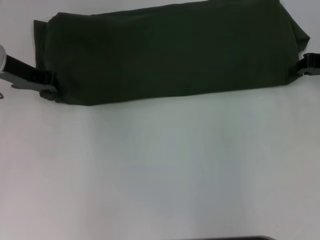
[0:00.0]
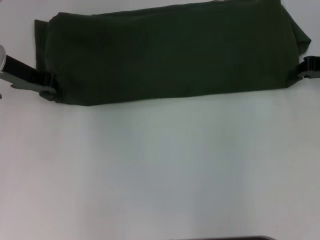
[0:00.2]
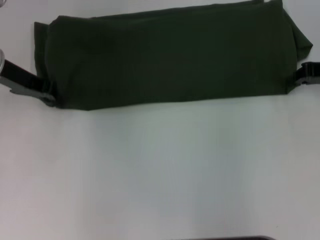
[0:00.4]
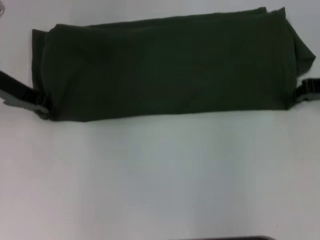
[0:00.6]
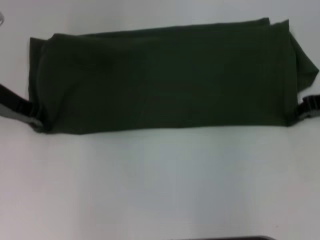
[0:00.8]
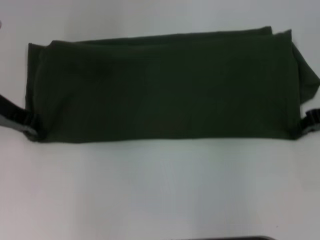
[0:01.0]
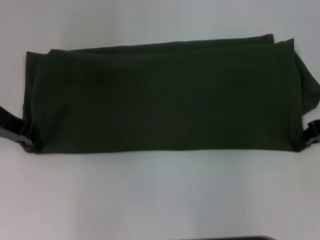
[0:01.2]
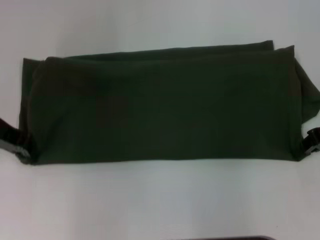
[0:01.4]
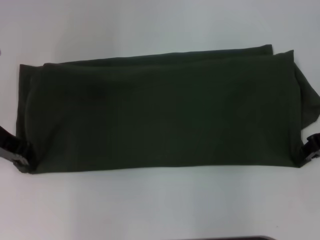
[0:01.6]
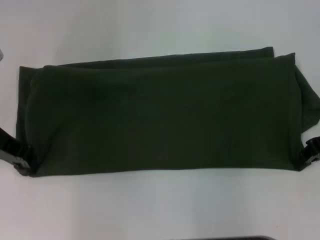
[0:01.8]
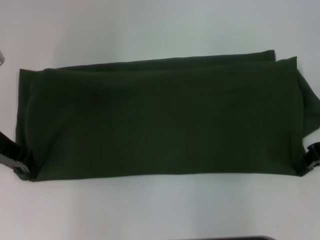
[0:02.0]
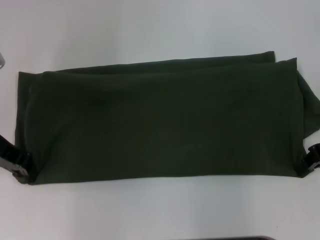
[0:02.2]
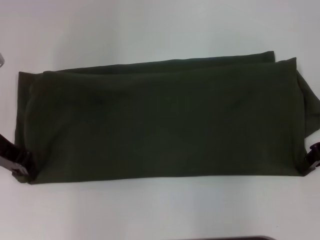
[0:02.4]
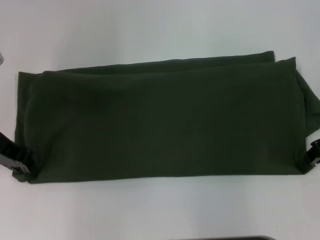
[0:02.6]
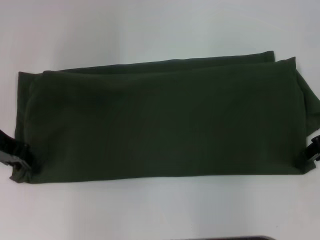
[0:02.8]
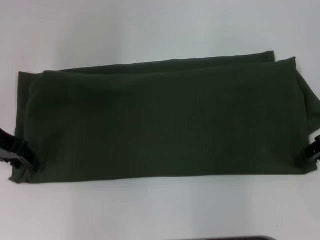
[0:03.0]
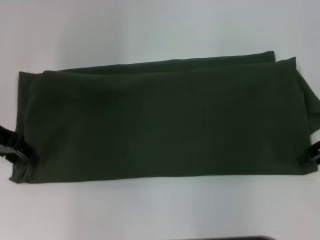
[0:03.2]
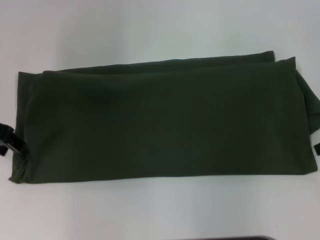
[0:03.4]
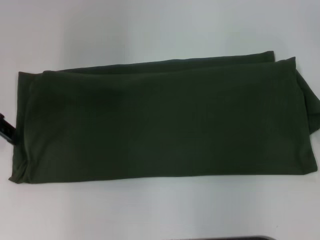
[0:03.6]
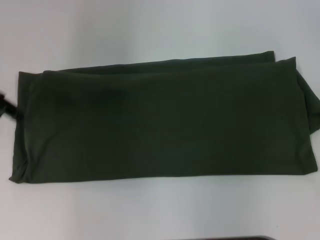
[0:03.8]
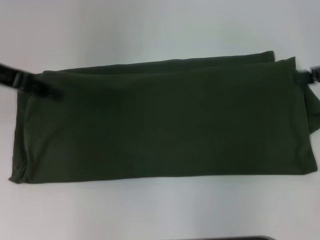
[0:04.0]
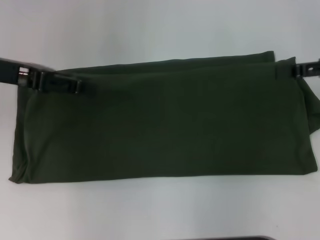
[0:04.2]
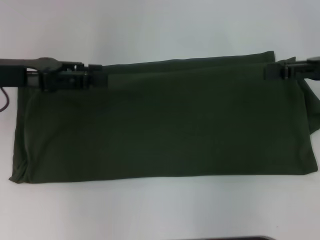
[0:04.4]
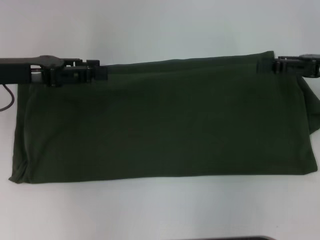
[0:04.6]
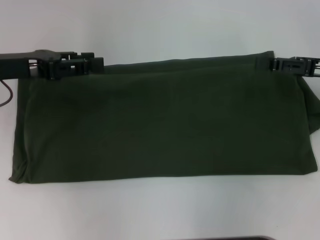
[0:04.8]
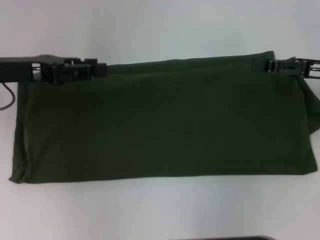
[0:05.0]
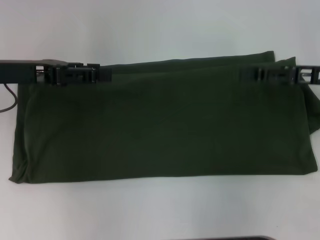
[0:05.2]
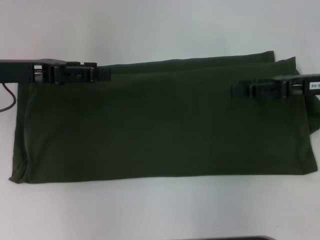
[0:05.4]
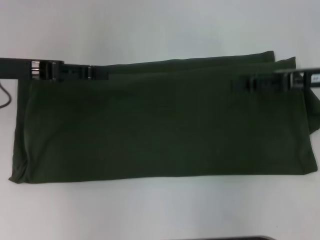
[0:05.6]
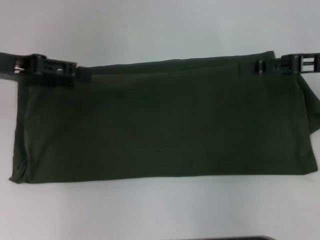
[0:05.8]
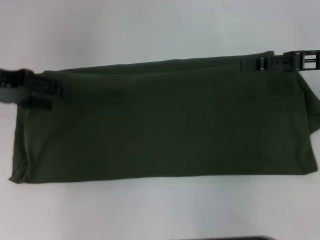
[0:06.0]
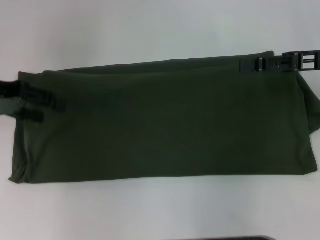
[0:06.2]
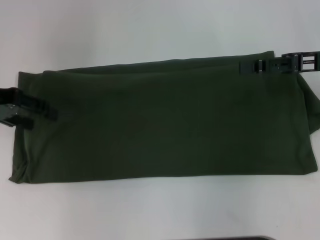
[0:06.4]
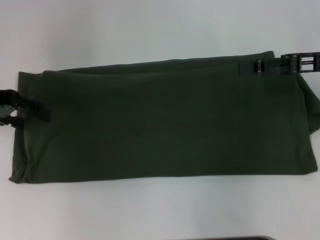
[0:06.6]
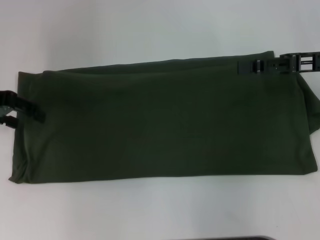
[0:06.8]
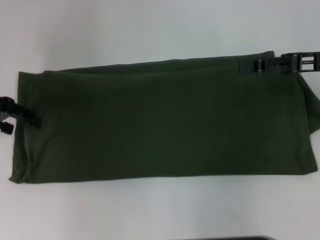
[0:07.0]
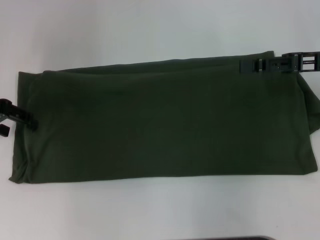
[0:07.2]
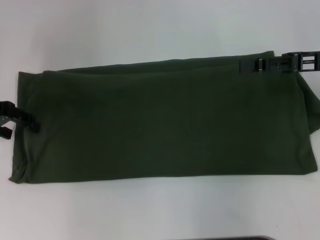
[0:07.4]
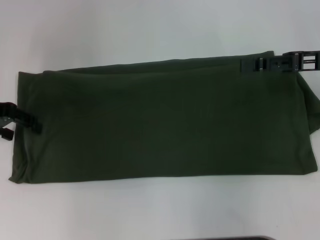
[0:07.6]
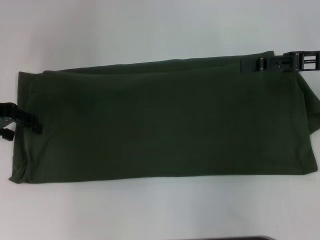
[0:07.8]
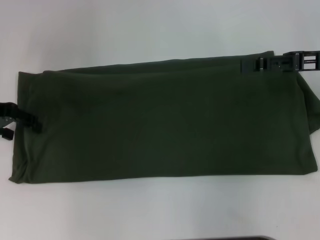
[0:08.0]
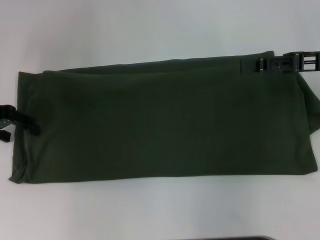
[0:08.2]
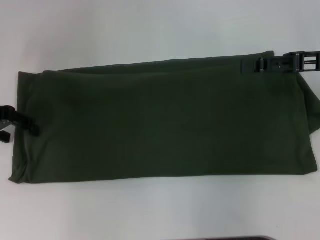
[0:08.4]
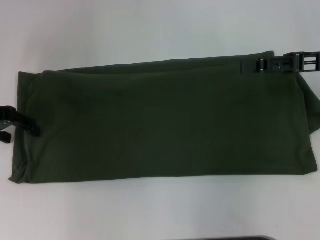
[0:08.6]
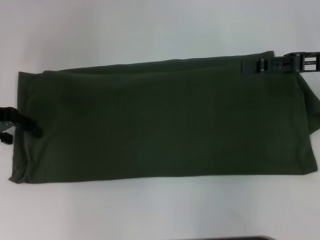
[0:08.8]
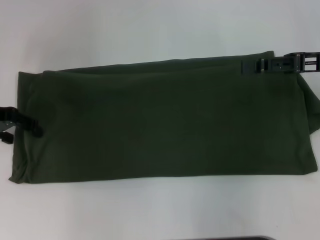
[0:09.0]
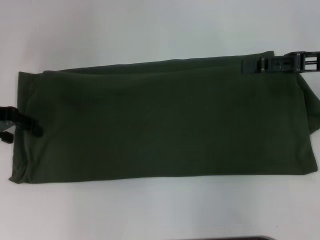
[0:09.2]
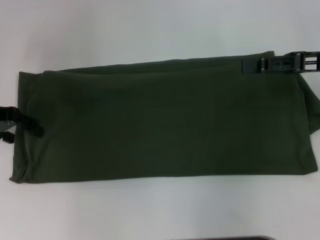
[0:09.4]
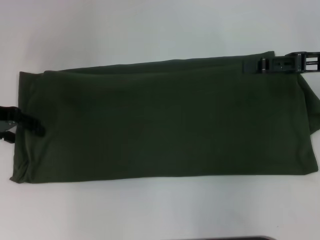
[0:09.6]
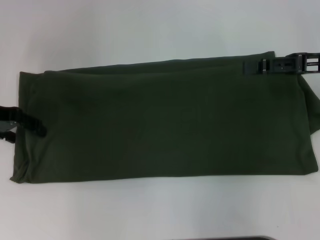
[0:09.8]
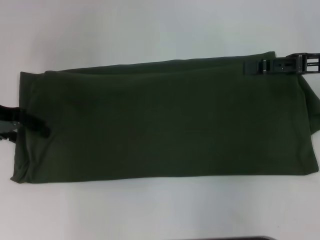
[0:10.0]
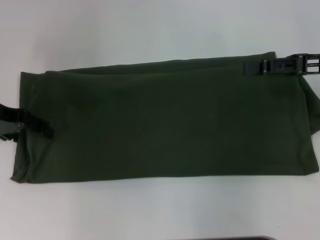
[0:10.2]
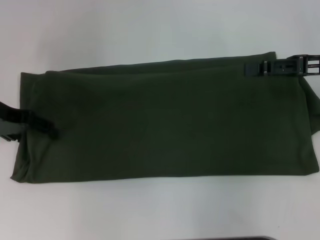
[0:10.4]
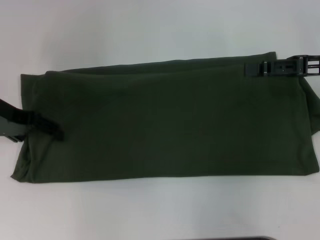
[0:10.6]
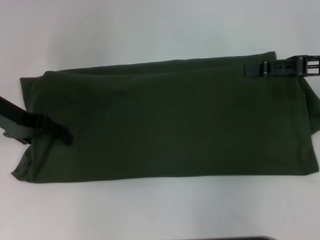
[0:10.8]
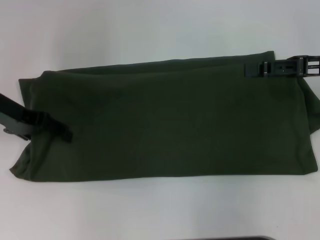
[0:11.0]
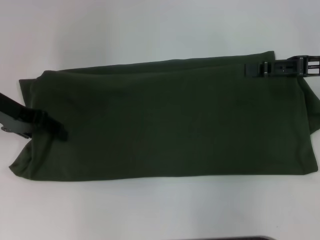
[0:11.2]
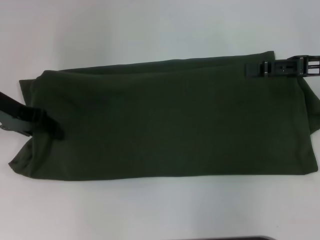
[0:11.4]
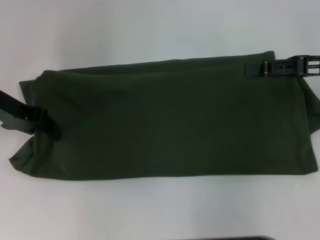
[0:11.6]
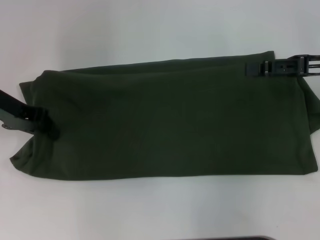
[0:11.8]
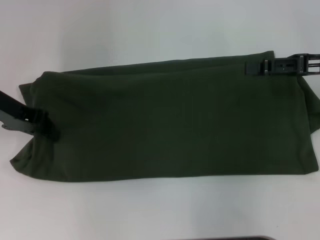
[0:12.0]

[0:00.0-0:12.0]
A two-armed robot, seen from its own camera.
0:00.0 to 0:01.6: The two grippers go about 5 cm backward.
0:01.6 to 0:03.0: The left gripper opens up.
0:03.0 to 0:04.4: The right gripper opens up.
0:04.4 to 0:06.0: The right gripper opens up. The left gripper opens up.
0:07.6 to 0:09.0: Both grippers stay put.
0:09.0 to 0:10.4: There are only small adjustments of the grippers.
0:10.4 to 0:12.0: The left gripper closes.

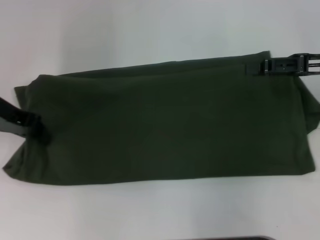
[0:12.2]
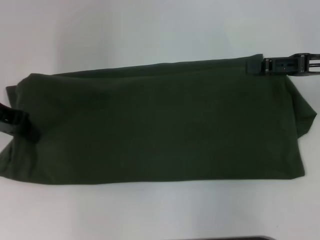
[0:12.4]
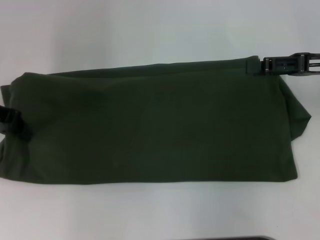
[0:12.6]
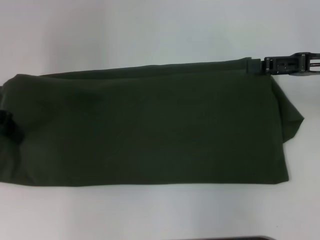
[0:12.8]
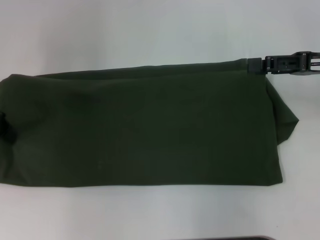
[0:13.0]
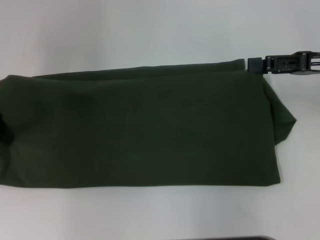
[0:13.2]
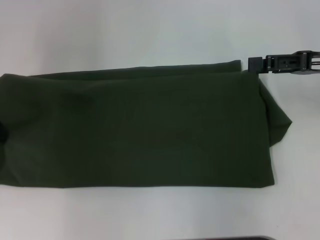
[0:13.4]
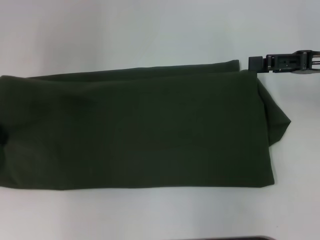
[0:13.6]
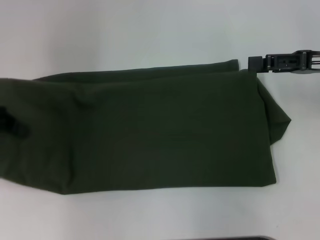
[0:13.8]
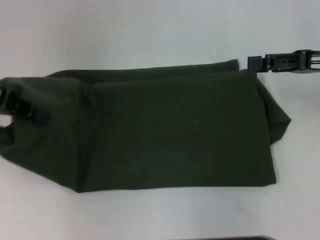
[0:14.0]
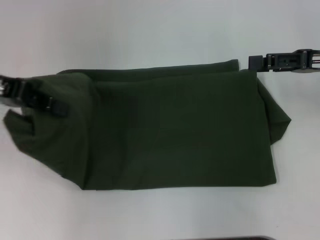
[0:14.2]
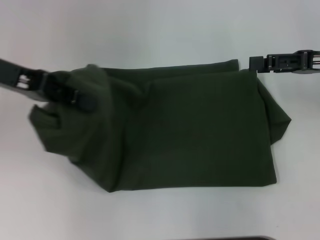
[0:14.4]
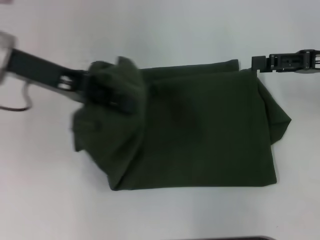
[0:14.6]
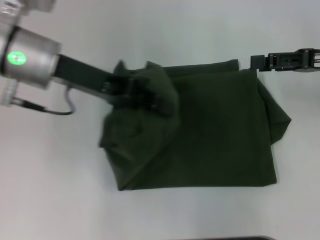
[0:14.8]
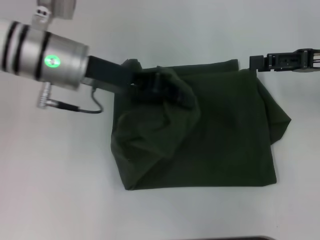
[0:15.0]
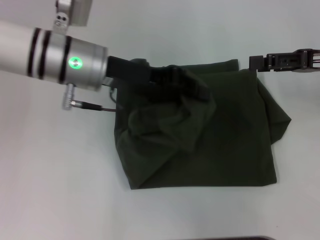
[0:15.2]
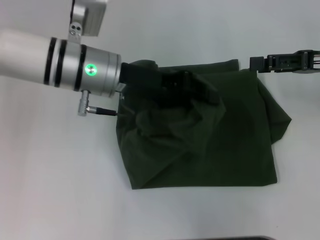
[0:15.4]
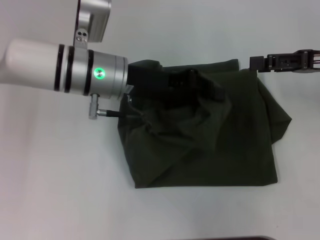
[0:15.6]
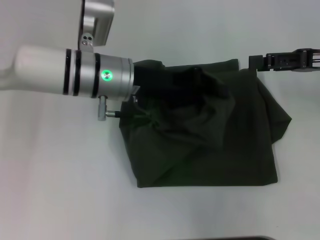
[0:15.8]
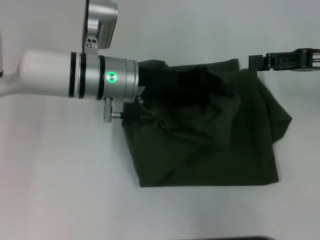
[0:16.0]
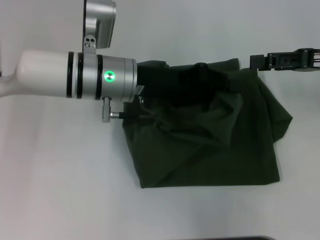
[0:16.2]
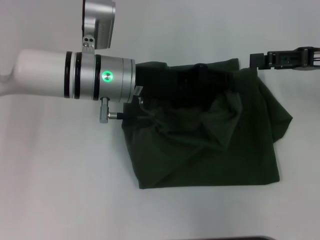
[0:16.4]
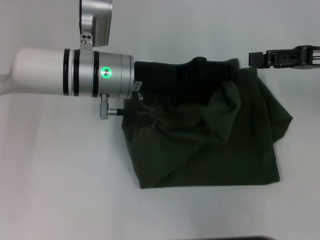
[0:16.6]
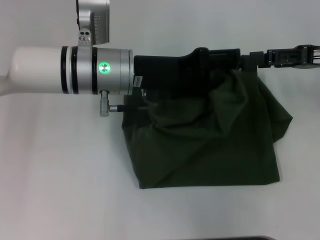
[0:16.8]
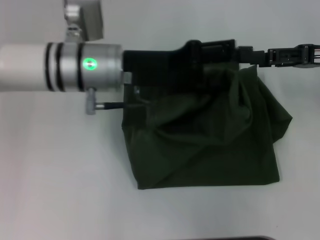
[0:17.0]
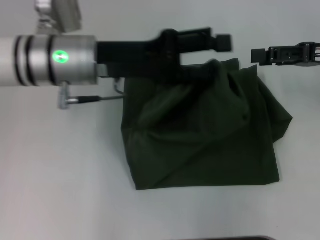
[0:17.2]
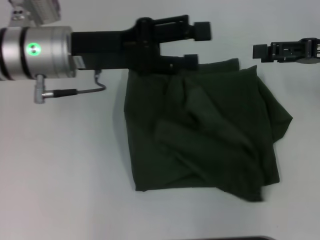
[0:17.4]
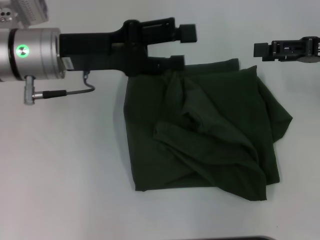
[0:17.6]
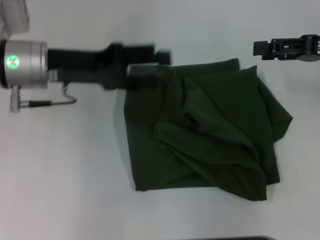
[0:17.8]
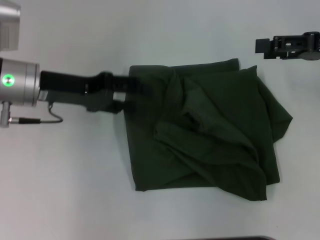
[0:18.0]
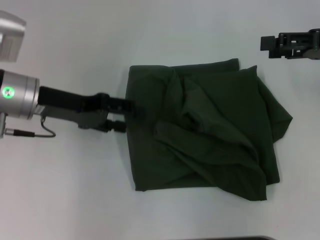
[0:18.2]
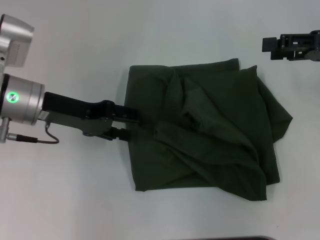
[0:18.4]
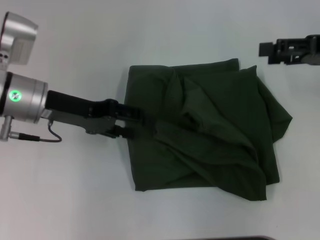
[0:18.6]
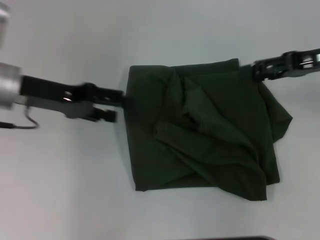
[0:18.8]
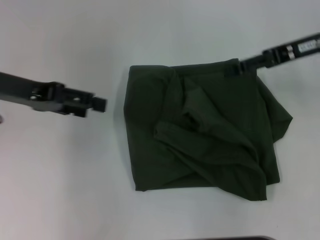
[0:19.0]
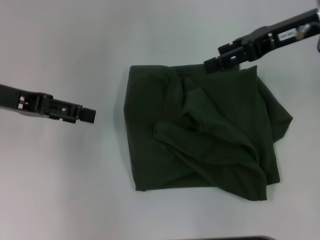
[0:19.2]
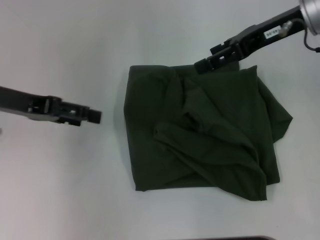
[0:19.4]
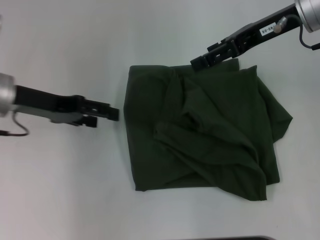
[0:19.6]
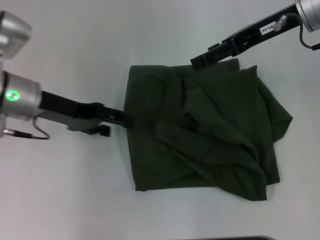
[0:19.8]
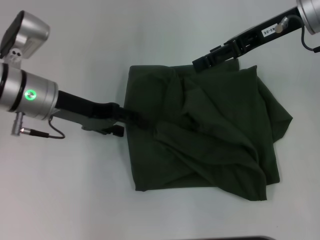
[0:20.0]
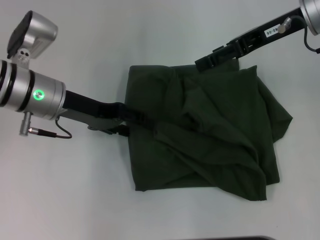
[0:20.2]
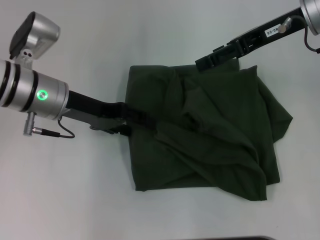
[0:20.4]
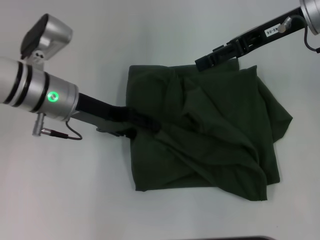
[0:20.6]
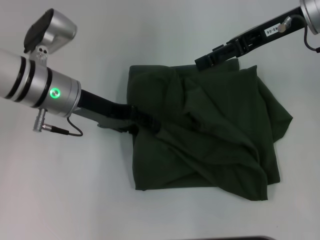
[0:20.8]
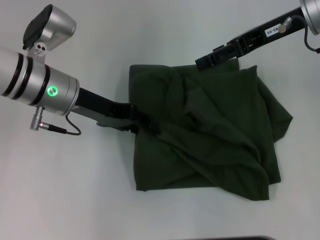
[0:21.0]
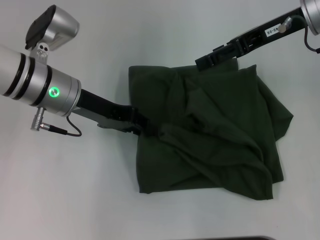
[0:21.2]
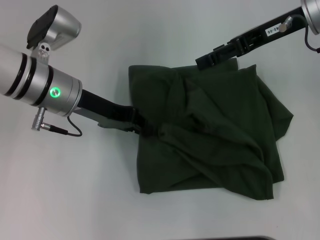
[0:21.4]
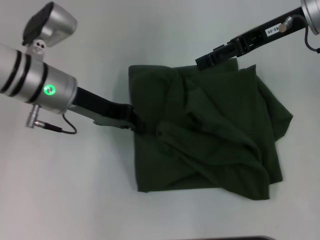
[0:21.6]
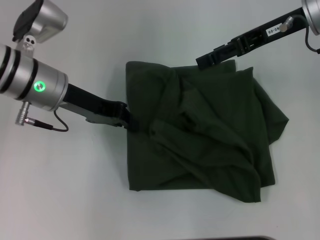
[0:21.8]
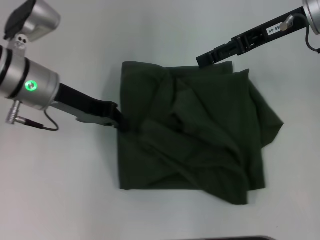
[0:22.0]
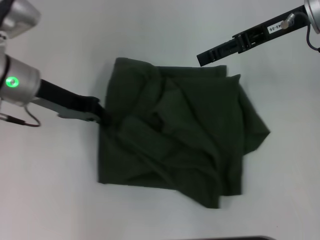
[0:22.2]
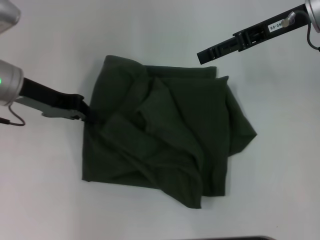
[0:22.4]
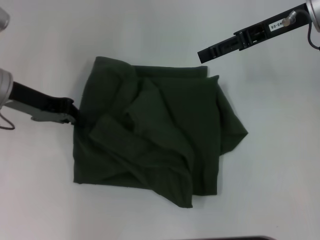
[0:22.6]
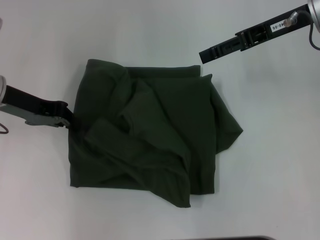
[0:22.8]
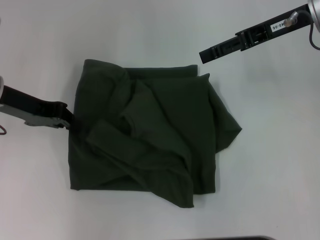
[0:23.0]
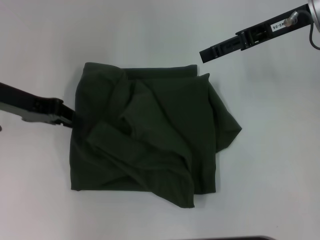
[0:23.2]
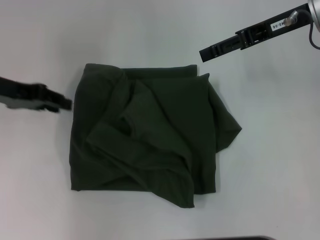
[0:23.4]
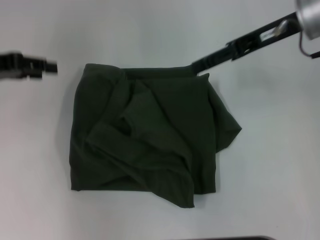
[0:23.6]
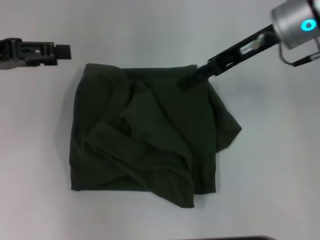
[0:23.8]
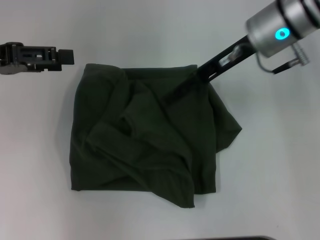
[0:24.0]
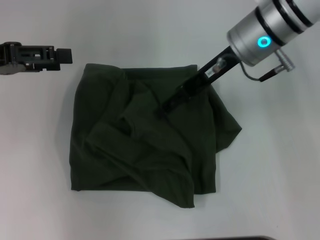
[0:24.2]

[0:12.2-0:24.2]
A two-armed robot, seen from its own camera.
Step, 0:12.2 to 0:17.6: Fold the clothes with your left hand.
0:12.2 to 0:13.8: The left gripper ends up some 5 cm from where it was.
0:13.8 to 0:15.2: The left gripper travels to the right by roughly 20 cm.
0:15.2 to 0:16.6: The left gripper opens its fingers.
0:16.6 to 0:18.2: The left gripper shifts some 10 cm to the left, and opens its fingers.
0:18.2 to 0:19.8: The right gripper heads to the left and forward, covering about 15 cm.
0:19.8 to 0:21.2: The left gripper is displaced to the right by about 5 cm, and closes.
0:21.2 to 0:22.6: The left gripper heads to the left, covering roughly 10 cm, and closes up.
0:22.6 to 0:24.2: The right gripper travels to the left by some 10 cm. The left gripper travels upward and to the left by approximately 10 cm, and opens up.
